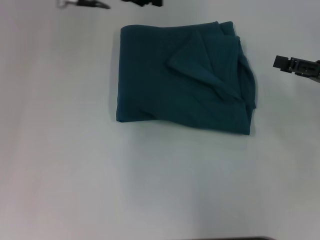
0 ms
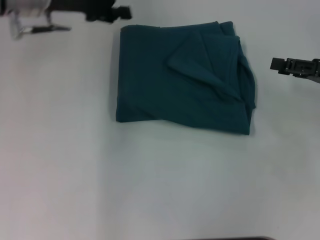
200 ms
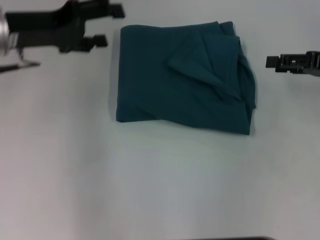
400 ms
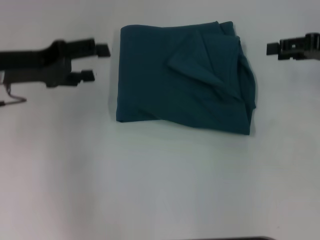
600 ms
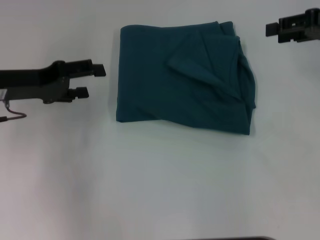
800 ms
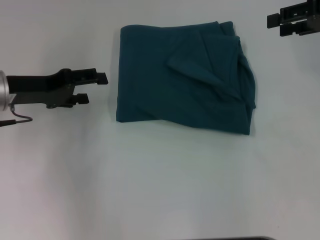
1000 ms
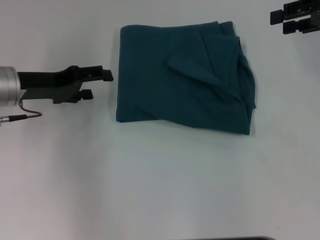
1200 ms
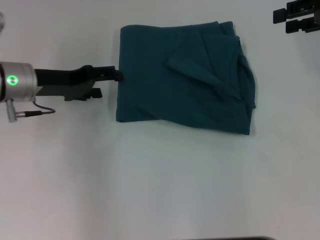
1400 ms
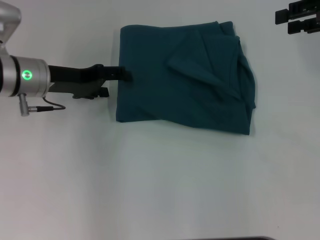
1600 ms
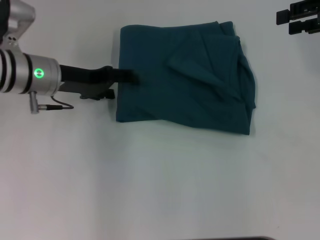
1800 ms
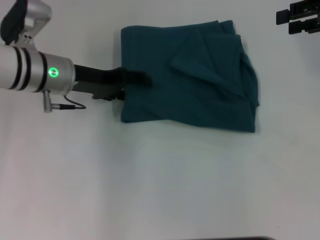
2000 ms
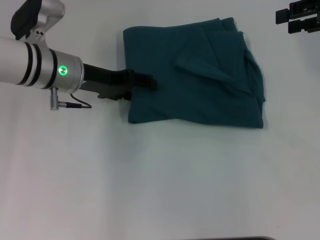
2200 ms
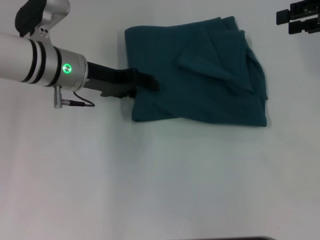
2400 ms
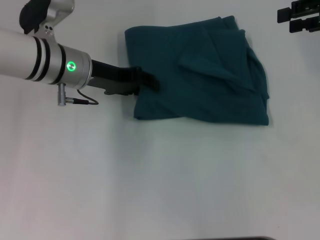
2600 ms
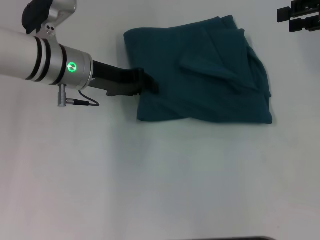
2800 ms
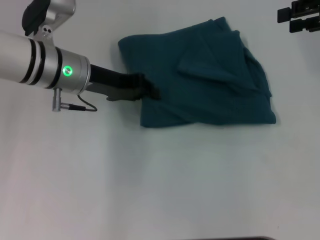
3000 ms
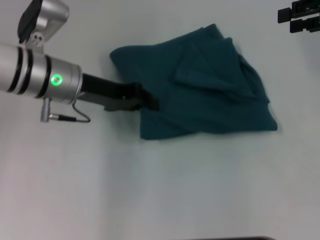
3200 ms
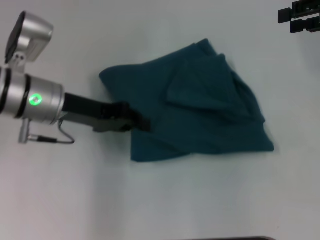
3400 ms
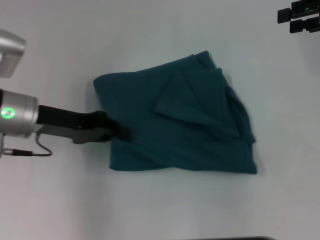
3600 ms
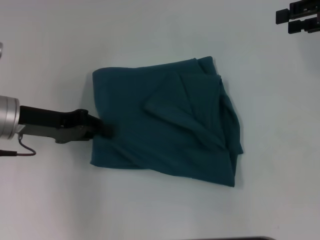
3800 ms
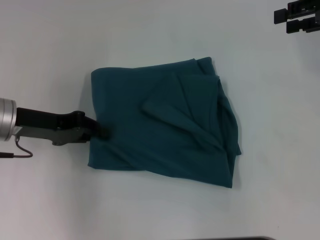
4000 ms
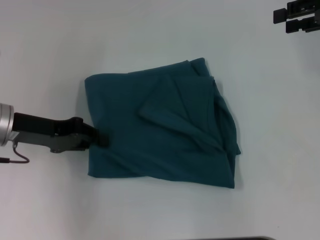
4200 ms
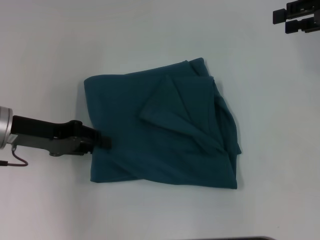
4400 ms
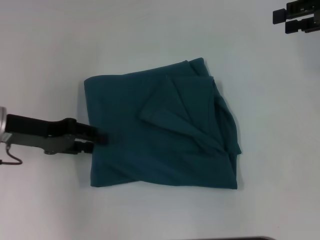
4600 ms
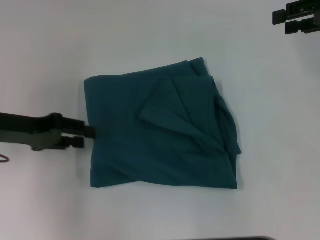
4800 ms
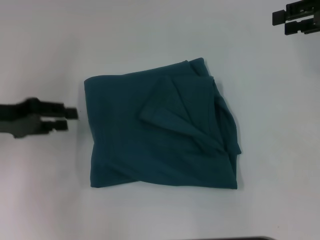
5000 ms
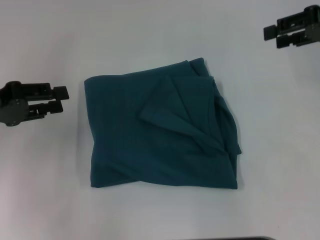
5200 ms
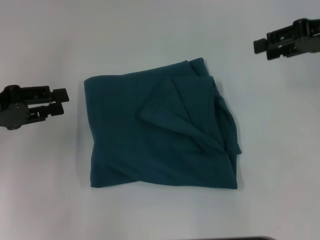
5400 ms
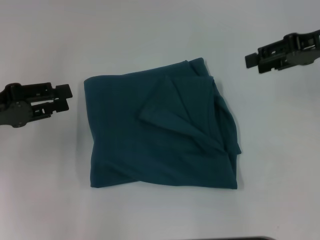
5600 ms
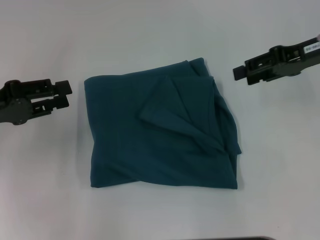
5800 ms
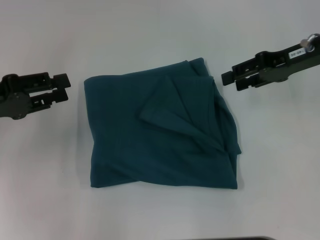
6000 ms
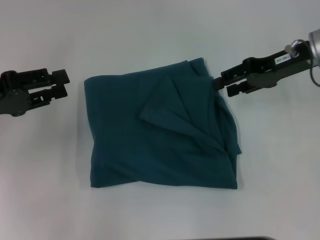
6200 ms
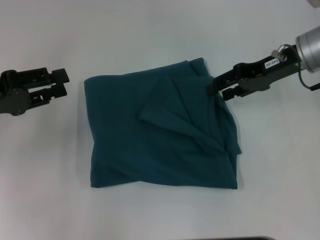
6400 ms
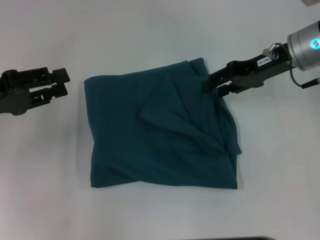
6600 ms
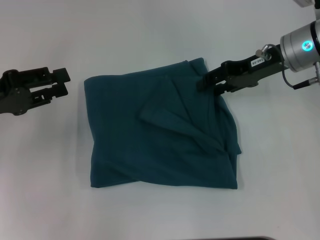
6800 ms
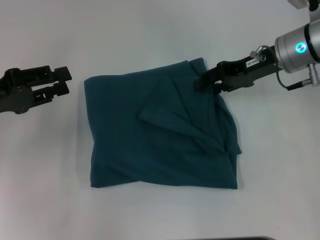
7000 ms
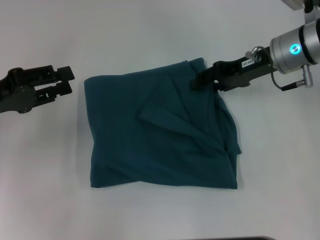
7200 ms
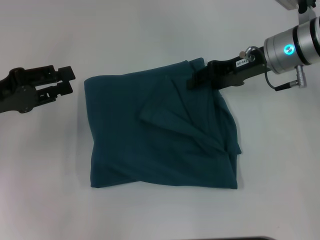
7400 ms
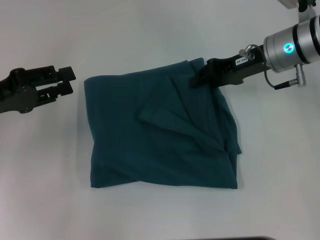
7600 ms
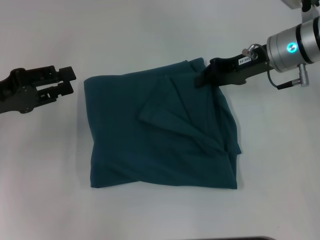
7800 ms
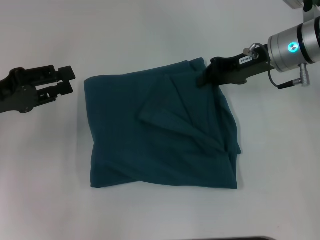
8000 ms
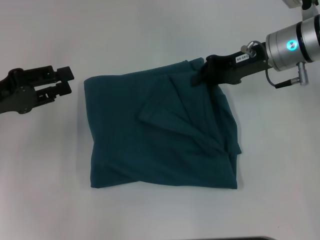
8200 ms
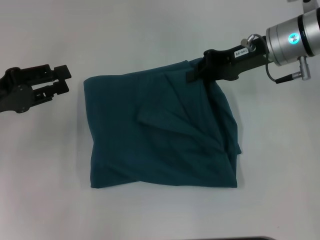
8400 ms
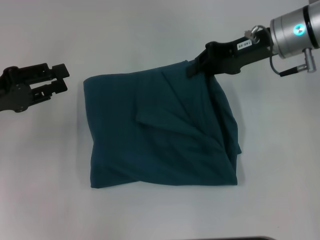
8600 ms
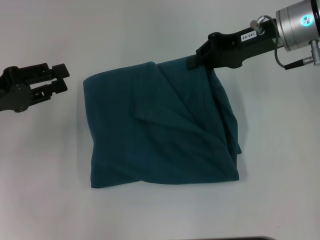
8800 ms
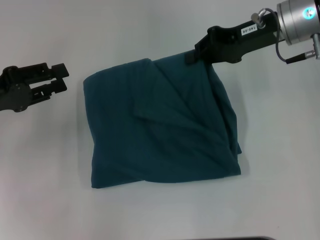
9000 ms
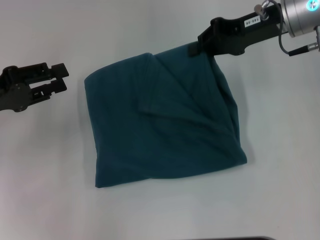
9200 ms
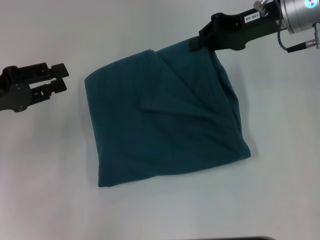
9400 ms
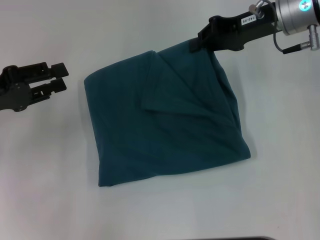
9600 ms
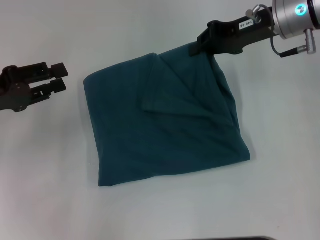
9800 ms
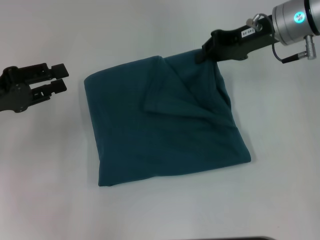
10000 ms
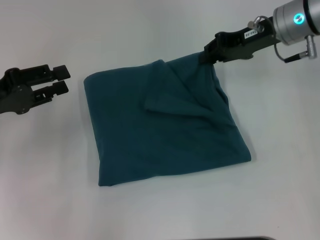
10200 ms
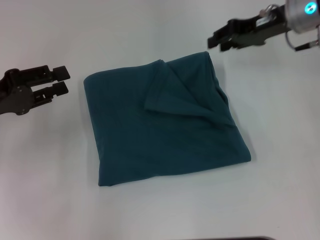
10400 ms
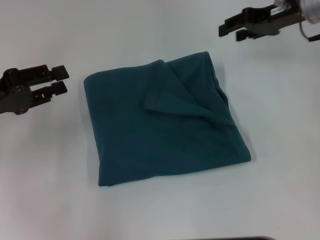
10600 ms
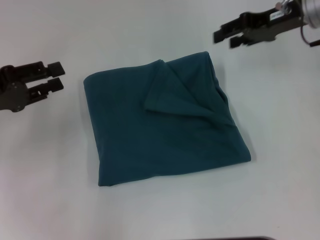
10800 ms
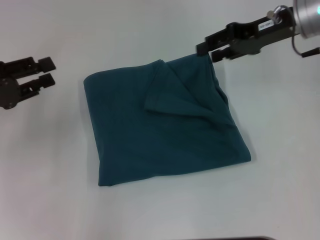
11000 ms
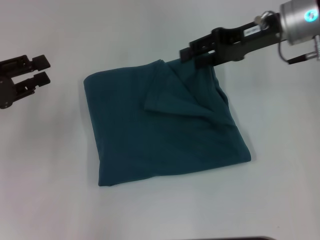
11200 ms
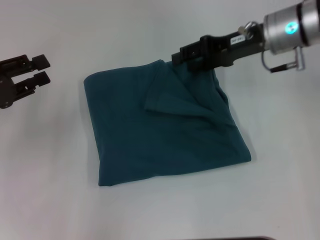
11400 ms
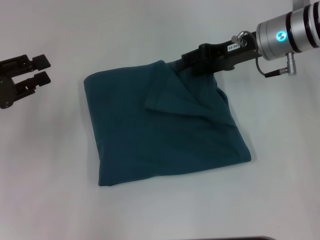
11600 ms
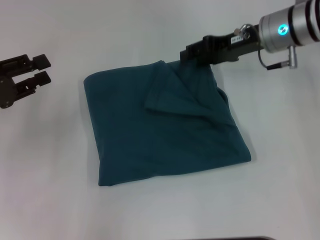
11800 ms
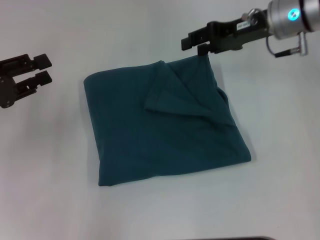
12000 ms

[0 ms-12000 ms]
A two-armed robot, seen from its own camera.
0 ms to 1600 ms: The right gripper moves upward and forward, approximately 15 cm, while the left gripper shifts some 15 cm downward, to the left and backward.
1600 ms to 3000 ms: The left gripper is displaced to the right by roughly 5 cm, and closes up.
3000 ms to 4400 ms: The left gripper is displaced to the left and backward by roughly 10 cm.
4400 ms to 6000 ms: The right gripper heads to the left and downward, covering approximately 10 cm. The left gripper travels to the left by roughly 5 cm, and opens.
6000 ms to 7600 ms: The right gripper travels to the left by approximately 5 cm.
7600 ms to 9000 ms: The right gripper heads upward, covering about 5 cm, and closes up.
9000 ms to 10400 ms: The grippers make only small movements.
10400 ms to 12000 ms: The right gripper opens.

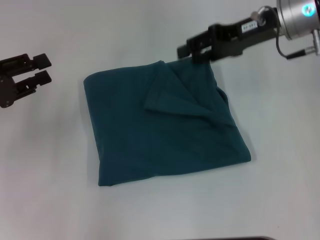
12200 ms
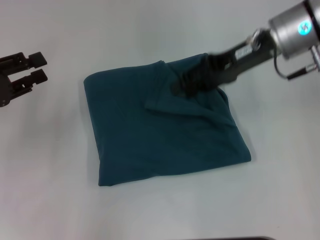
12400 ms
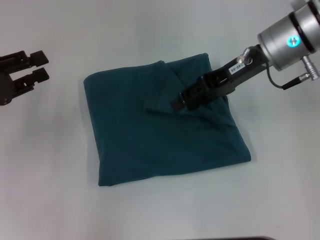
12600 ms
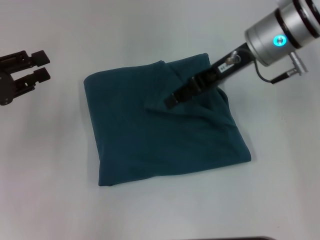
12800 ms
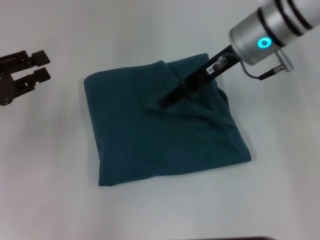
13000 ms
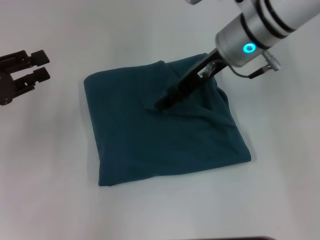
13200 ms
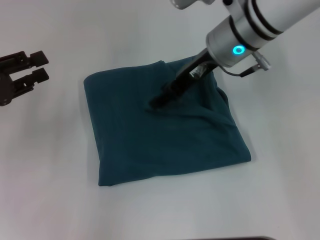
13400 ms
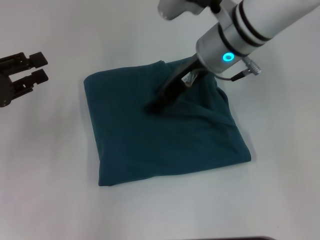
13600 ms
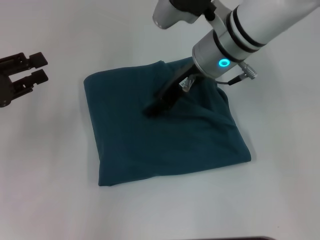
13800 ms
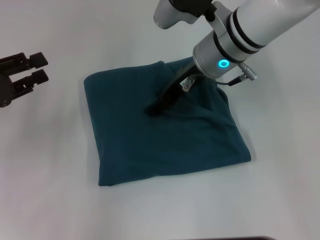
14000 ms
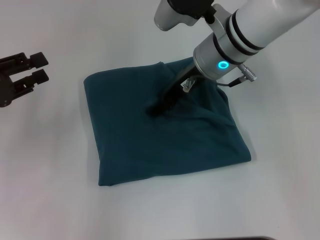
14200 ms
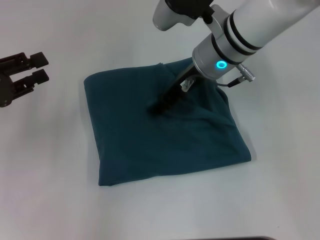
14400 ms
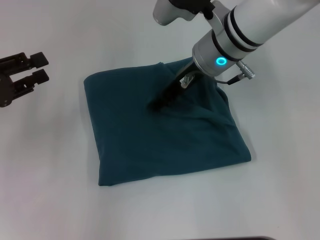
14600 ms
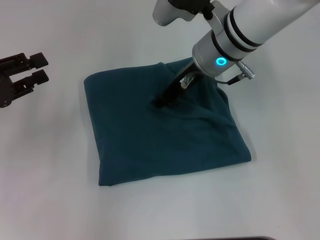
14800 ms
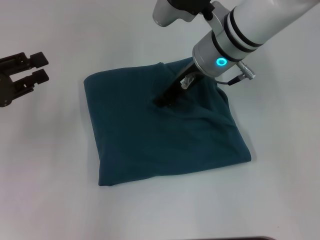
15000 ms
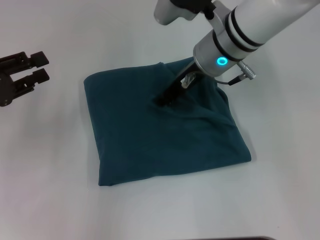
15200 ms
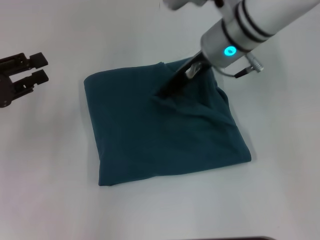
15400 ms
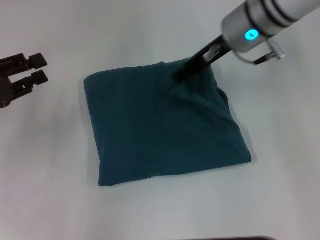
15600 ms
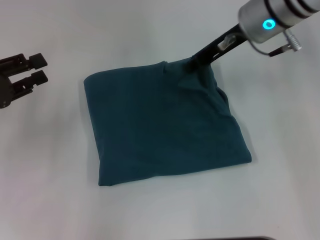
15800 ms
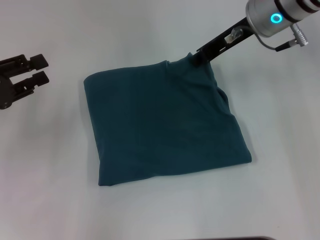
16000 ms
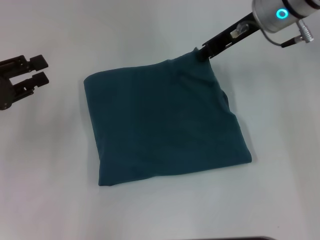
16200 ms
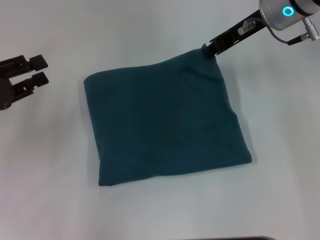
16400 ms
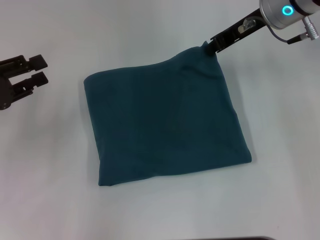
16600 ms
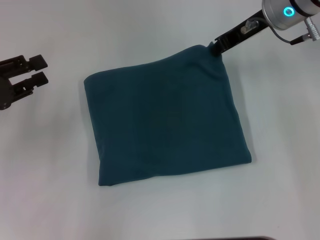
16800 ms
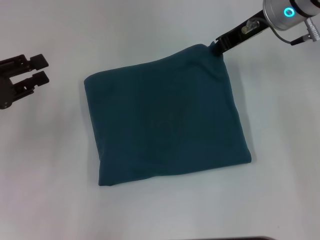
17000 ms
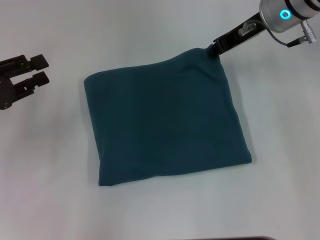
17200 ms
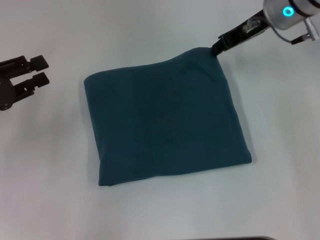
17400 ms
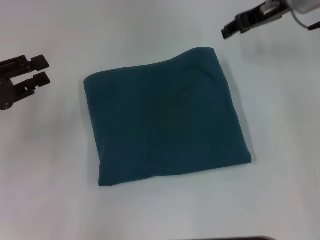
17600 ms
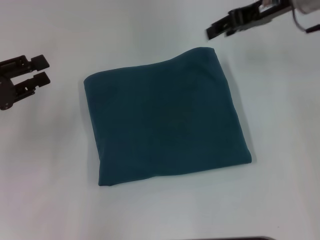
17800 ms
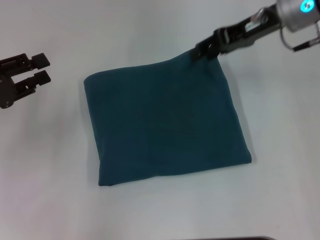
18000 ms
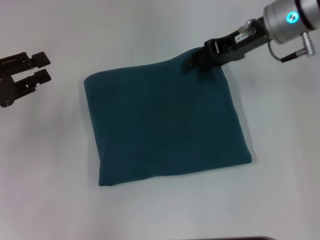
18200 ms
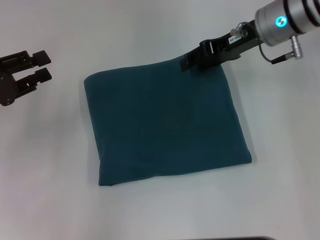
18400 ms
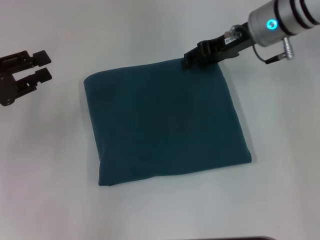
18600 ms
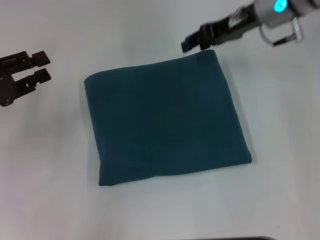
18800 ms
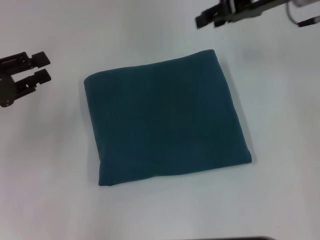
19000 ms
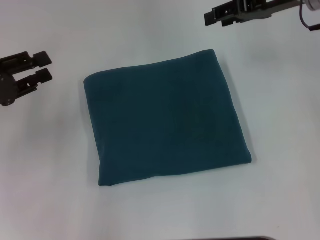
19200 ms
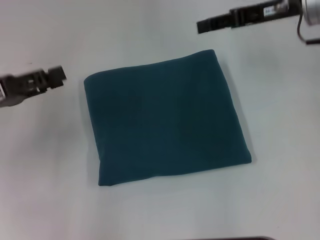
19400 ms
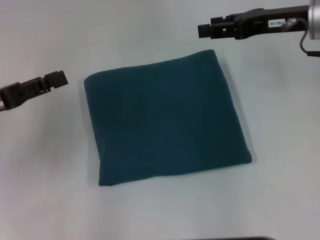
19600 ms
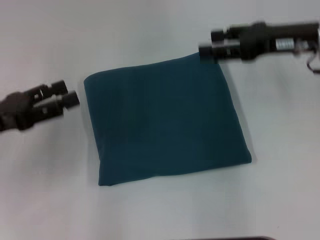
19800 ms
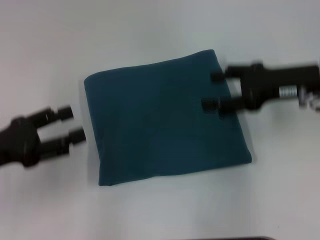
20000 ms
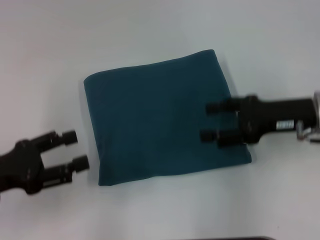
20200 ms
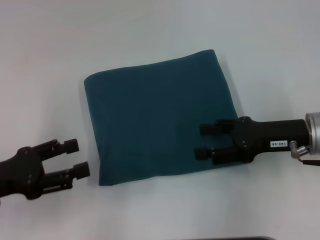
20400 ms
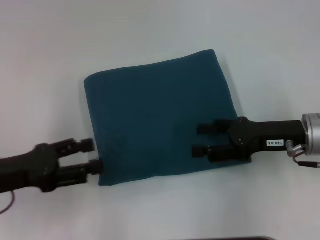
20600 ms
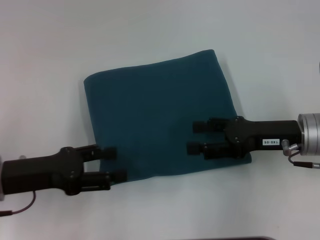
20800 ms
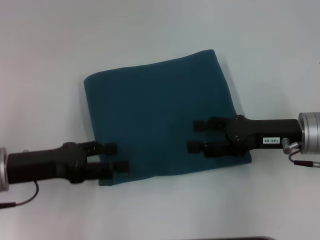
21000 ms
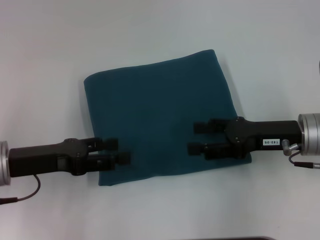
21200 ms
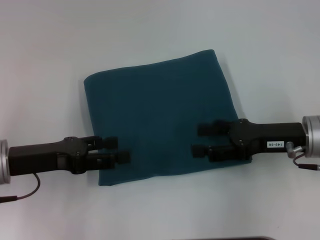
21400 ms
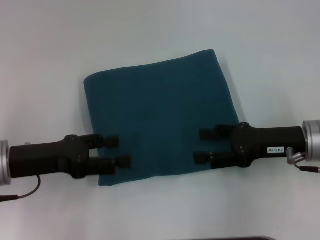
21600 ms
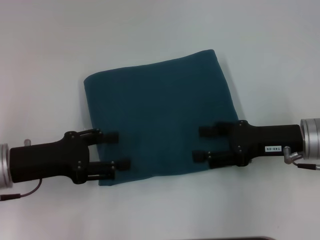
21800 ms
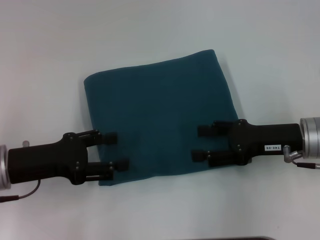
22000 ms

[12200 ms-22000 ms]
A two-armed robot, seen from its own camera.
12200 ms to 13600 ms: The right gripper shifts approximately 10 cm to the left.
13600 ms to 15000 ms: The right gripper closes.
15000 ms to 16400 ms: The right gripper moves to the right, some 10 cm.
16400 ms to 17800 ms: The right gripper opens.
19200 ms to 20600 ms: The left gripper is displaced backward by approximately 5 cm, and opens. Meanwhile the right gripper shifts some 20 cm backward and downward.
20600 ms to 22000 ms: The grippers move only a little.
